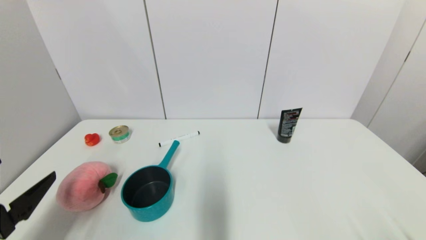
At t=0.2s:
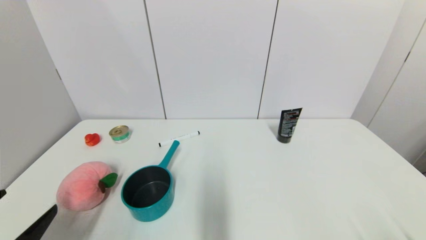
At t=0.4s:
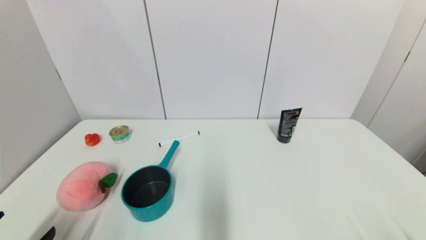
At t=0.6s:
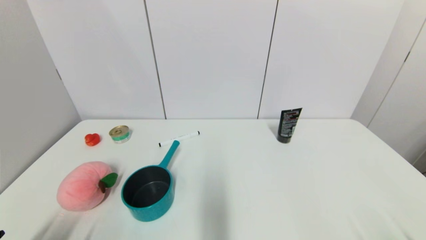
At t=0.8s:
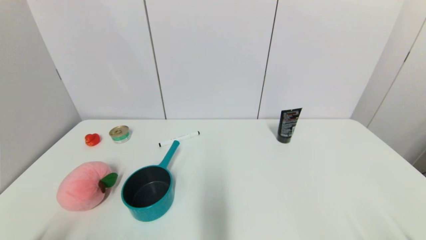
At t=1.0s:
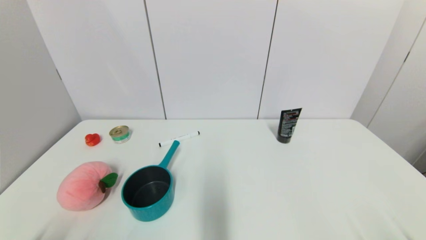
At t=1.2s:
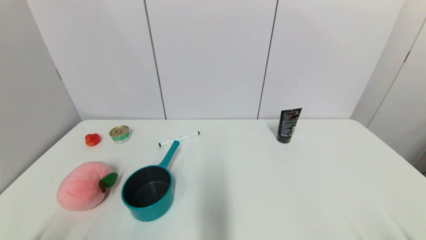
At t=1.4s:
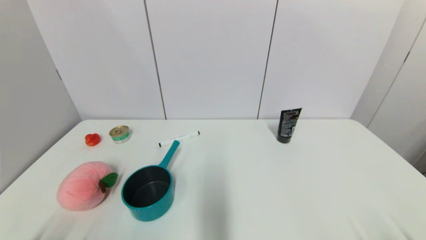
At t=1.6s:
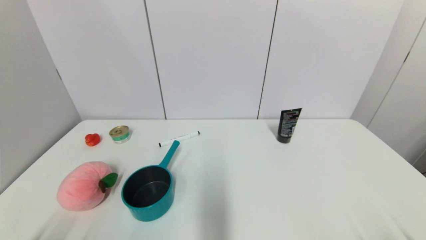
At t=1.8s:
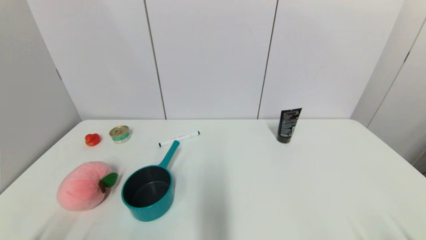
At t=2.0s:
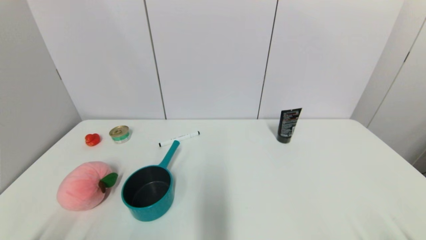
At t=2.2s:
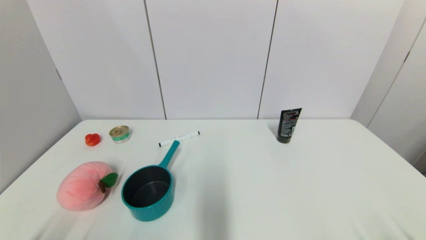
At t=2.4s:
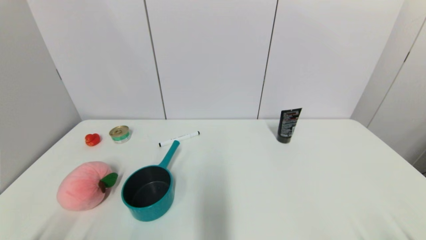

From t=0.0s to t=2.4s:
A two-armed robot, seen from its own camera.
From t=0.0s to t=1.2s: The left gripper travels downward and backward by about 15 cm.
From t=1.2s to t=2.4s: The two grippers keep their place.
